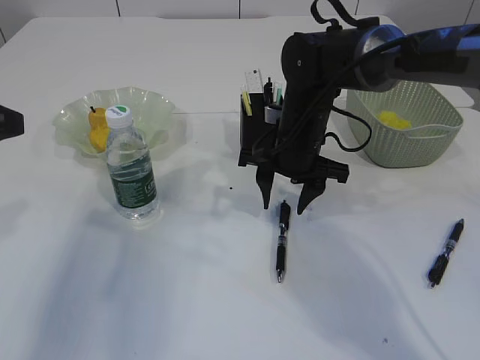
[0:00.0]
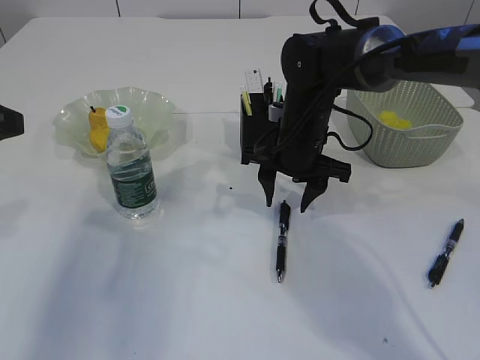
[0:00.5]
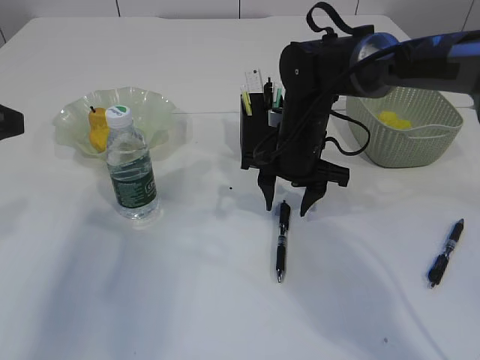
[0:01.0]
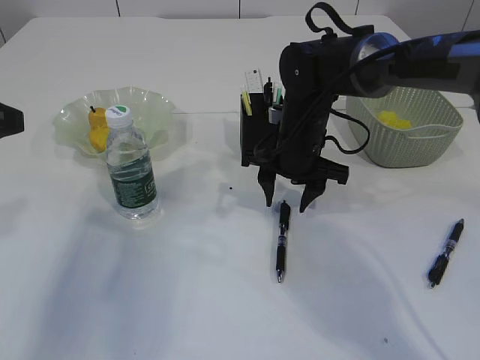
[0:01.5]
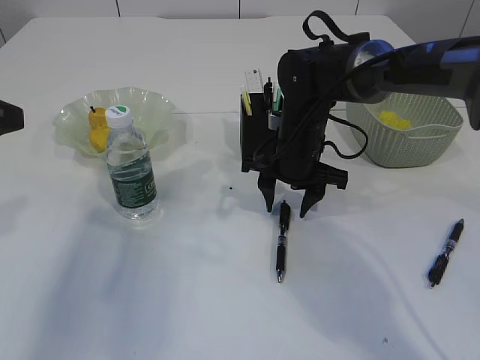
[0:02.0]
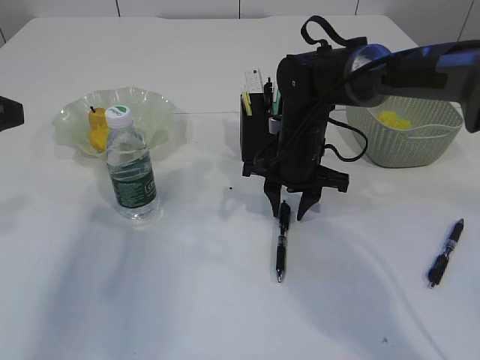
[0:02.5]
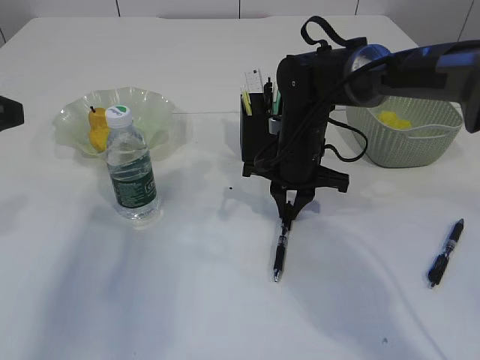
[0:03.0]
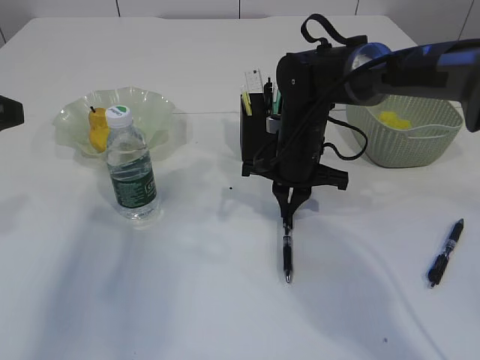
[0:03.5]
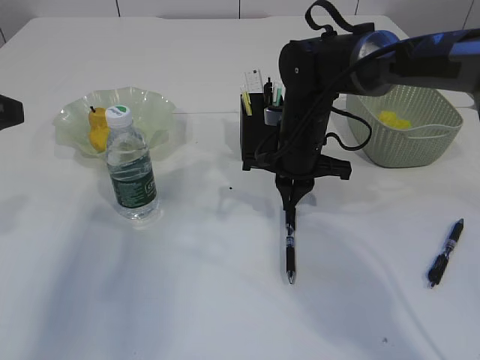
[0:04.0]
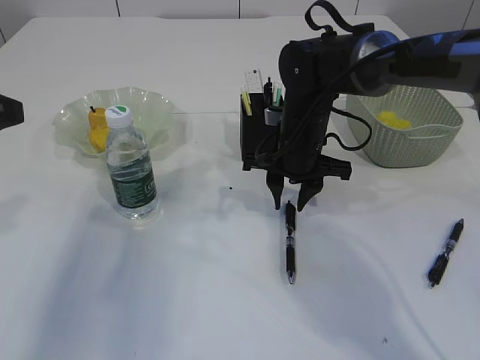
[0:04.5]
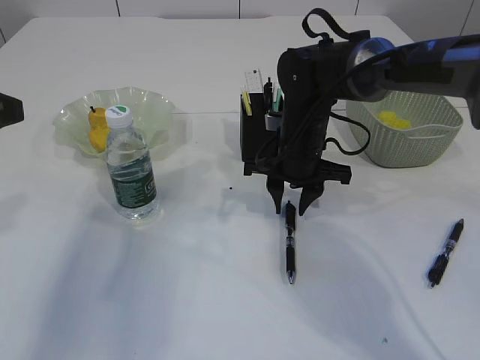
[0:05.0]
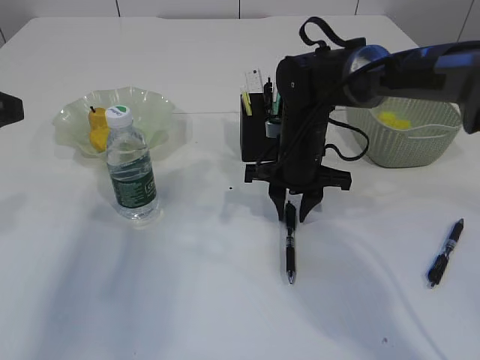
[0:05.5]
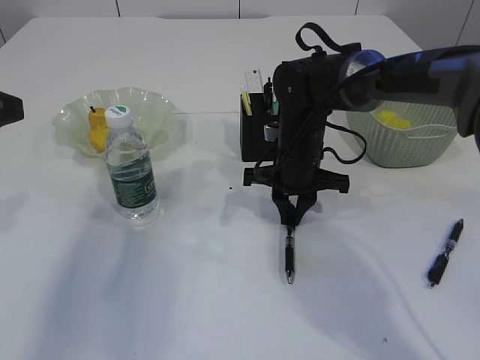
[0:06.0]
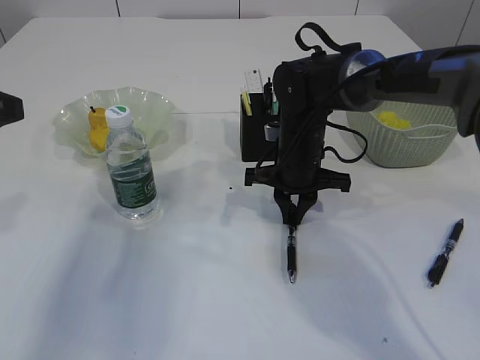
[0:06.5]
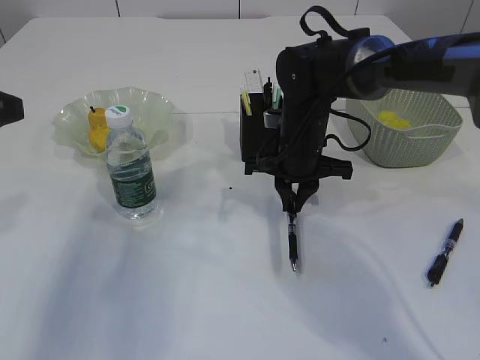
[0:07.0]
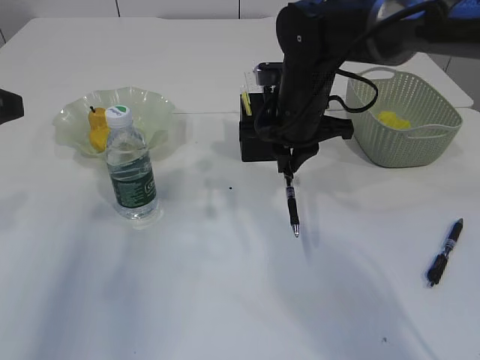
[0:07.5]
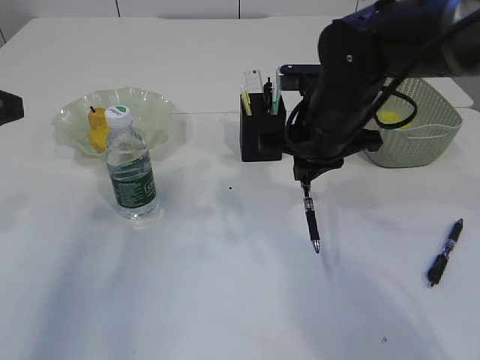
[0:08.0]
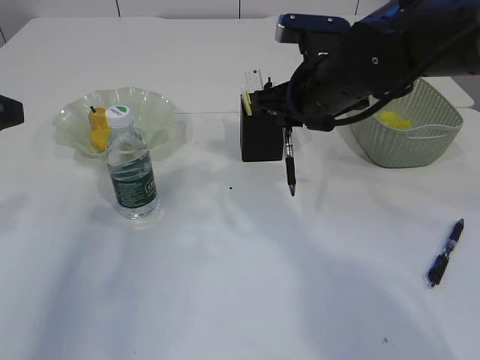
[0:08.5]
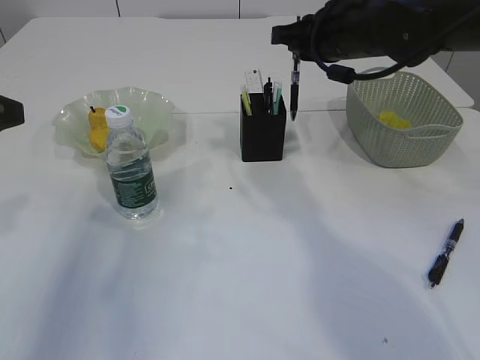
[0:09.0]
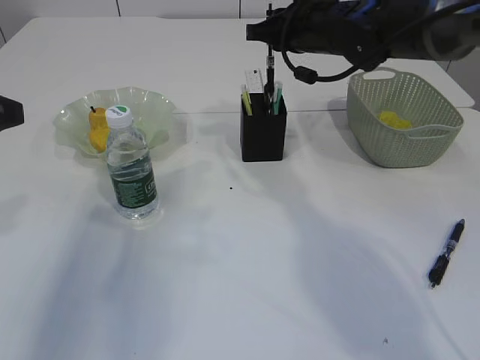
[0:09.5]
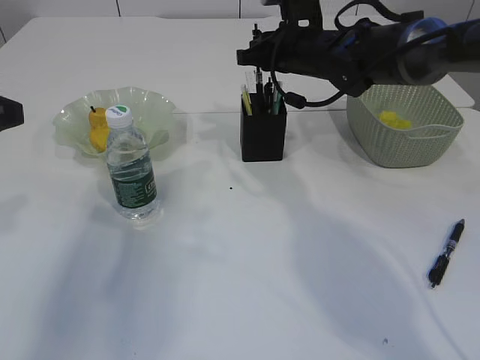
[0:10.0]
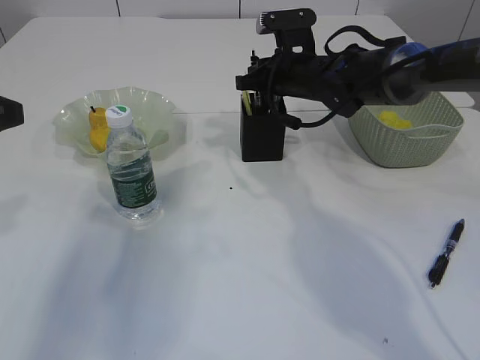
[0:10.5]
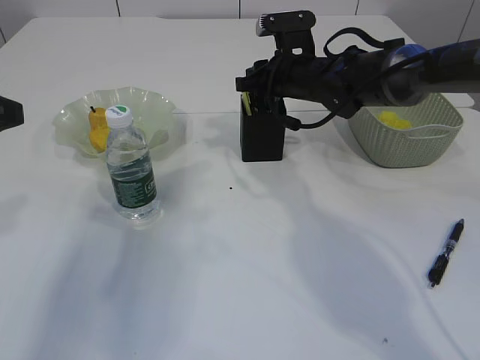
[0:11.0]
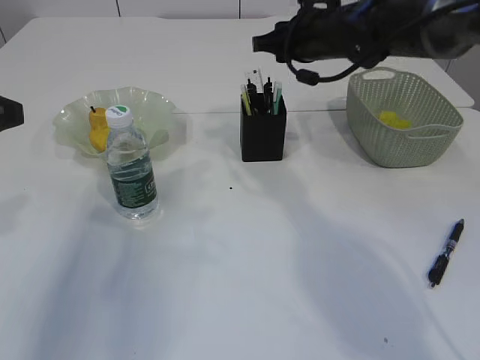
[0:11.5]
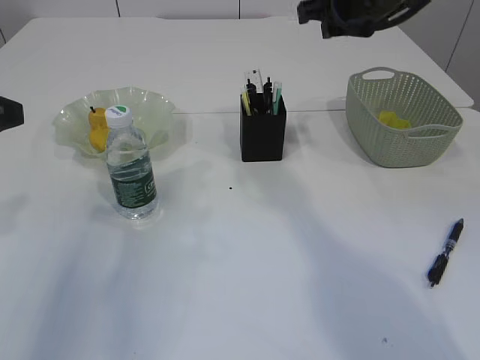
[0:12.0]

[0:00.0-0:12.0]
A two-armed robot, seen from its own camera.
Step, 0.0 to 7.0 s: Pick up the pen with right arm.
Step, 7.5 to 11.0 s: Place the pen into the pen holder.
0.0 to 2.0 s: There are only small adjustments of the grippers.
2.0 to 4.0 s: The right gripper closes.
4.0 to 6.0 s: The right gripper opens, then closes again.
6.0 to 8.0 s: The right gripper goes some 10 cm upward and backward.
8.0 to 10.0 s: The right gripper goes approximately 15 cm forward.
10.0 to 12.0 s: The right gripper shifts approximately 10 cm upward and backward.

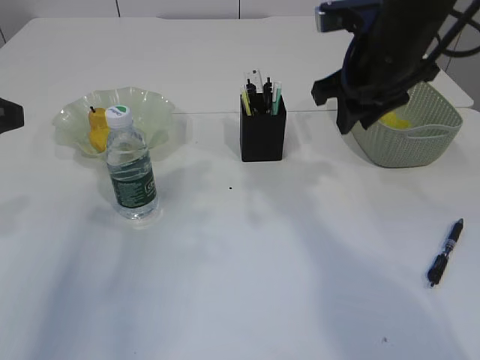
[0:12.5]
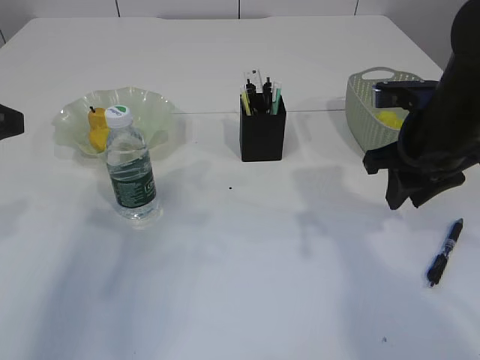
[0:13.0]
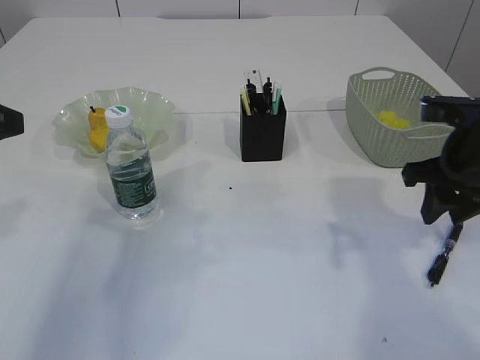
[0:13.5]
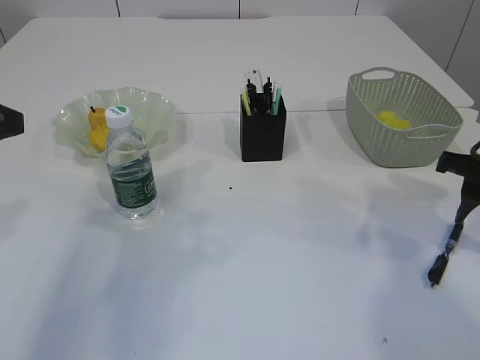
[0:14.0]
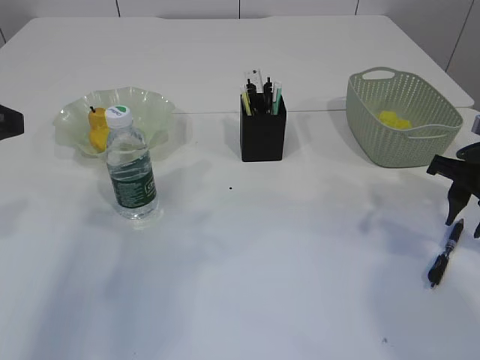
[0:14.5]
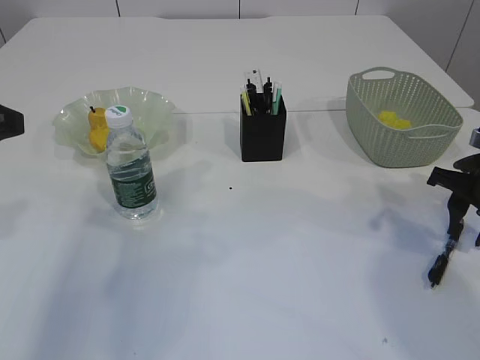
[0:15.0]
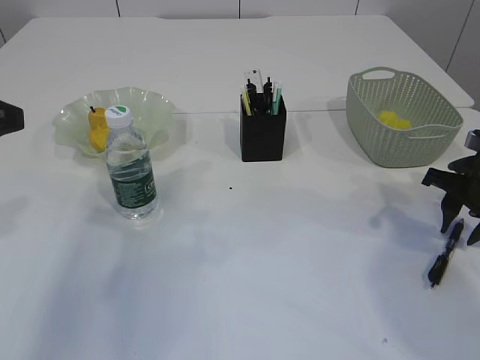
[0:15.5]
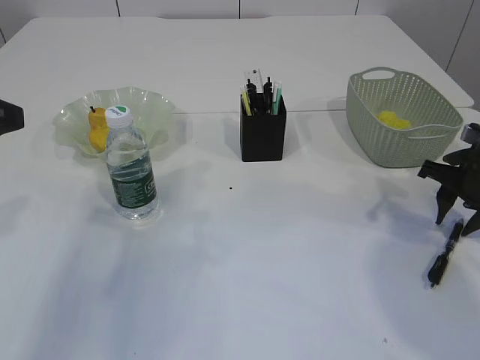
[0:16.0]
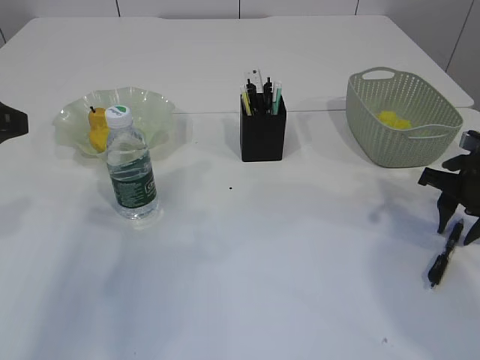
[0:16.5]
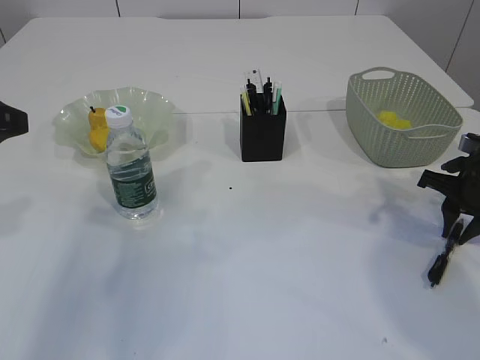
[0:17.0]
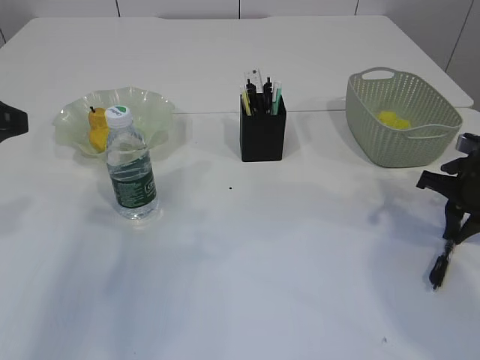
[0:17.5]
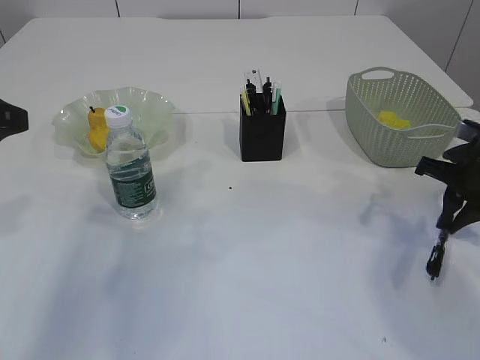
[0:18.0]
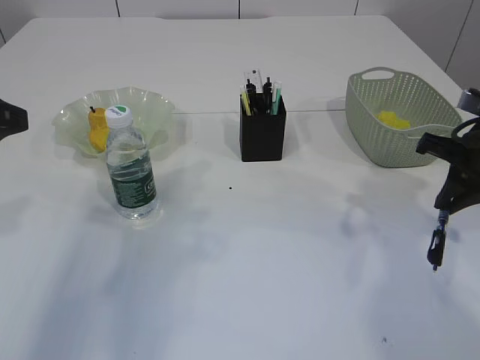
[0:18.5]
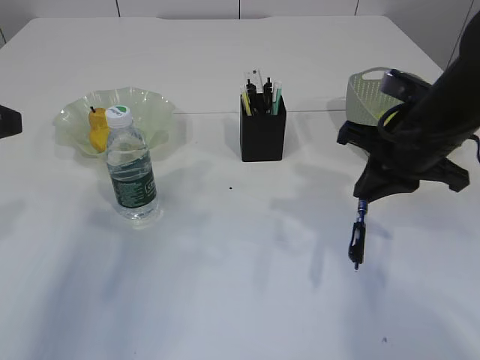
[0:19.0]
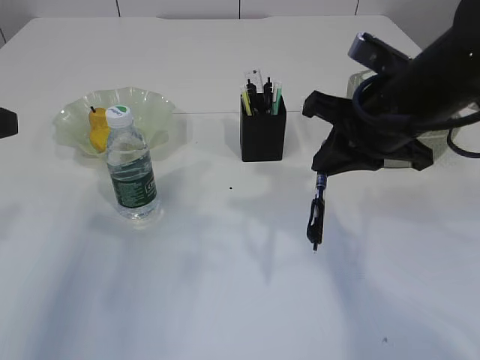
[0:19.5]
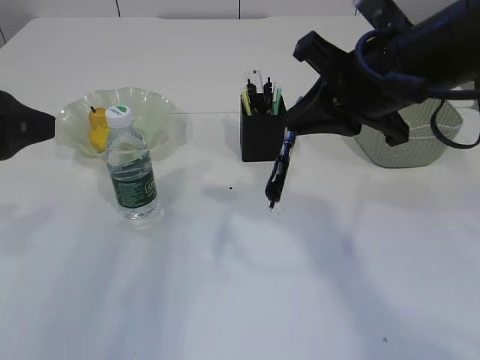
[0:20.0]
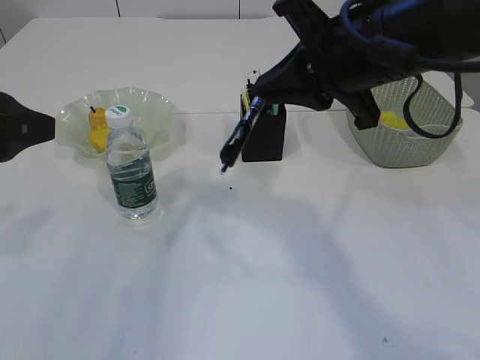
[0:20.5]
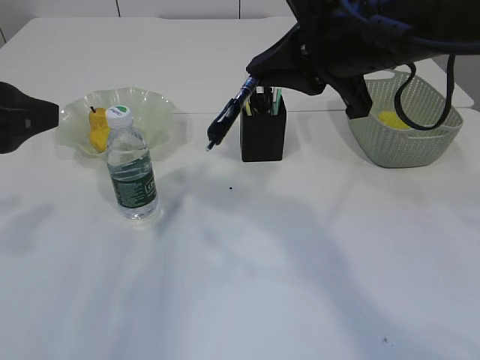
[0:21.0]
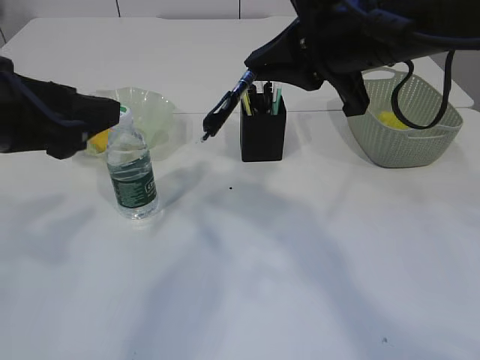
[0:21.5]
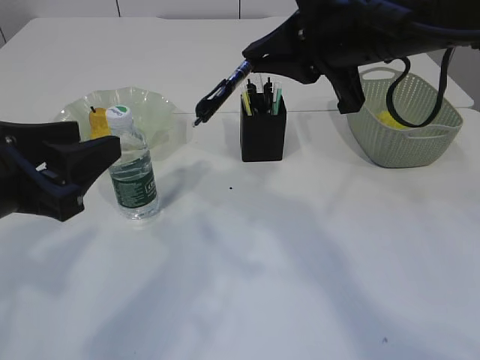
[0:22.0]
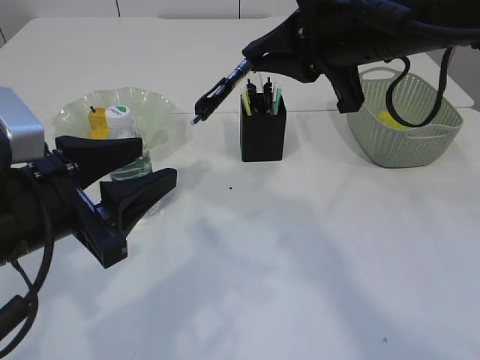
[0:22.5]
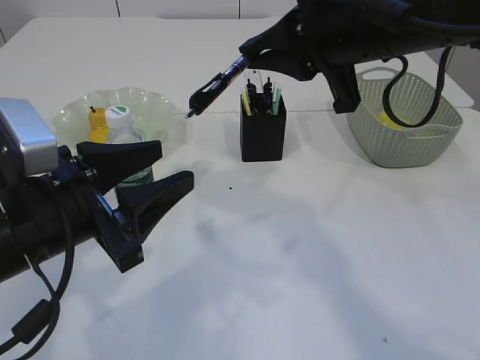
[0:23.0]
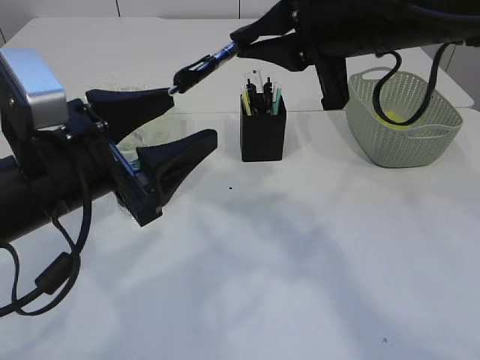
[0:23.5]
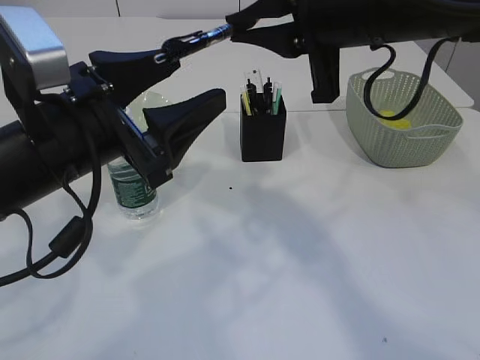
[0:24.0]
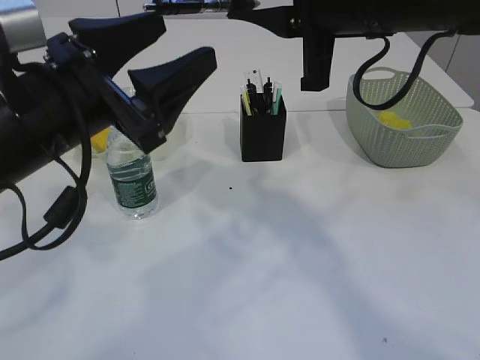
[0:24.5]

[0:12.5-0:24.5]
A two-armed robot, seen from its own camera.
Step, 12.5 to 18.0 s: Pick up the pen with right arm.
12.5 to 14.5 s: The right gripper heads to the right and downward, covering about 20 cm.
14.5 to 16.5 s: The right gripper shifts by about 5 cm.
16.5 to 18.5 s: The right gripper goes about 10 cm upward, and closes.
18.5 to 20.5 s: The right gripper is displaced to the left and upward by some 20 cm.
20.5 to 22.5 s: The left gripper heads downward and to the right, covering roughly 10 cm.
22.5 to 24.5 s: The left gripper is displaced upward by roughly 5 cm.

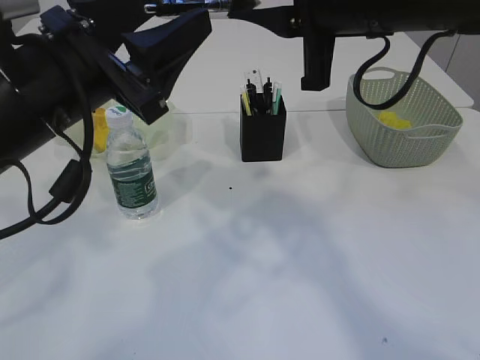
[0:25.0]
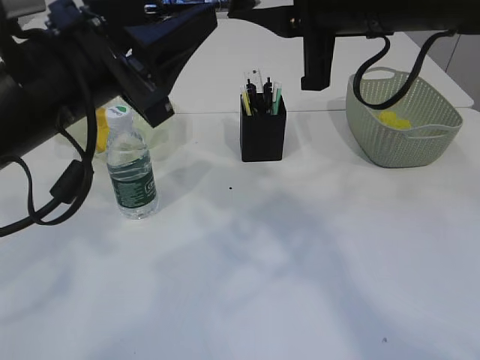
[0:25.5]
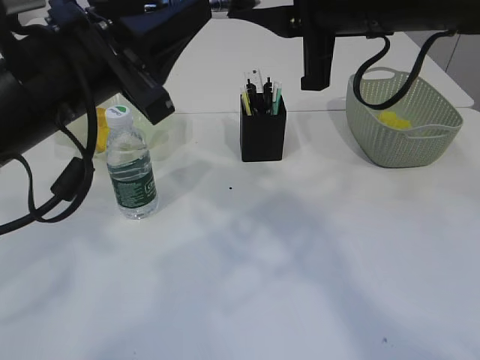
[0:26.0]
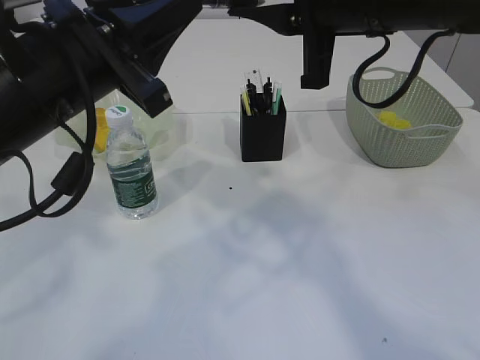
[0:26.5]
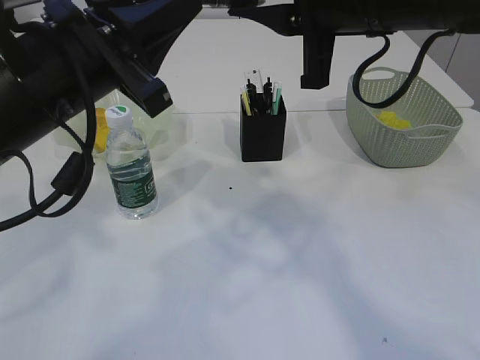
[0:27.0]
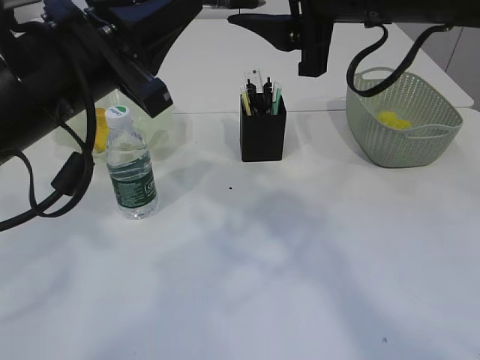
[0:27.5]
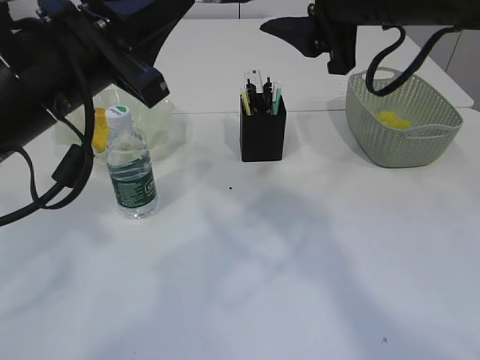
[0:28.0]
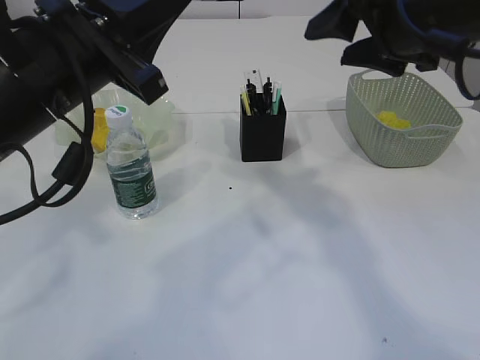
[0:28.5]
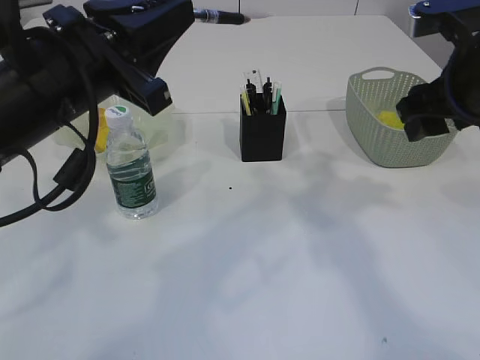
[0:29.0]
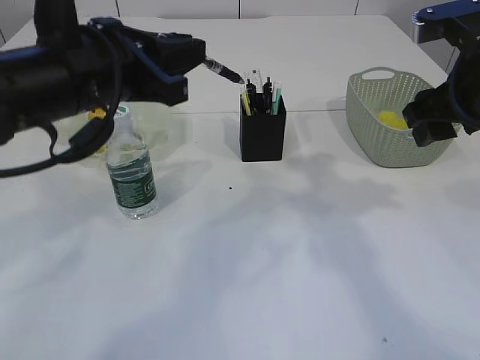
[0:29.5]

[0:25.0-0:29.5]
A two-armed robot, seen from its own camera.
Step, 25.0 to 28.0 s: transfer the pen to the left arm.
25.0 to 27.0 s: The left gripper closes.
27.0 to 29.5 s: The right gripper is displaced to the right and downward by about 15 cm, and opens.
